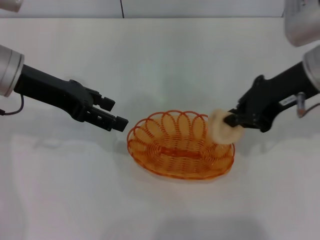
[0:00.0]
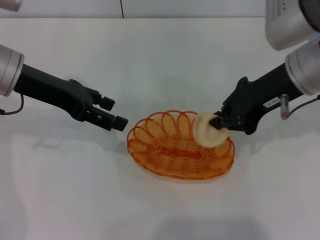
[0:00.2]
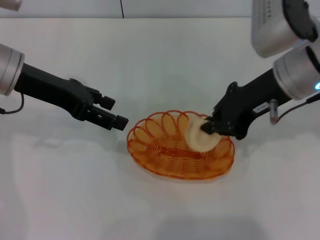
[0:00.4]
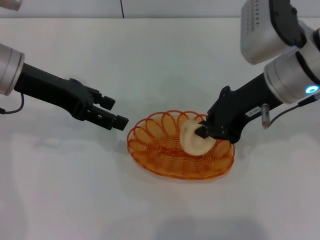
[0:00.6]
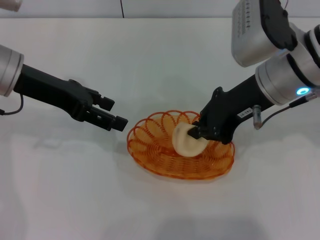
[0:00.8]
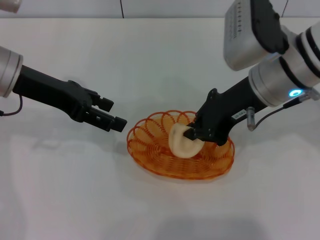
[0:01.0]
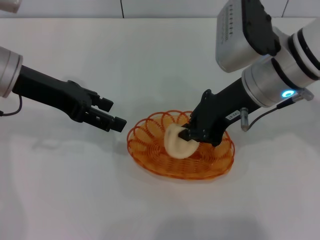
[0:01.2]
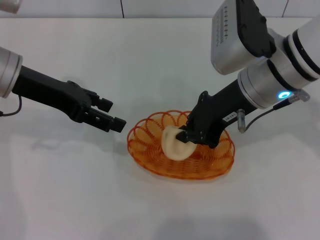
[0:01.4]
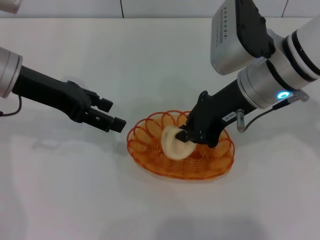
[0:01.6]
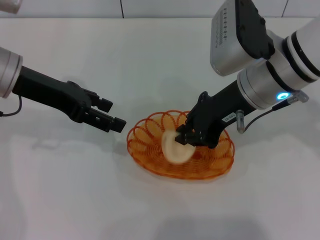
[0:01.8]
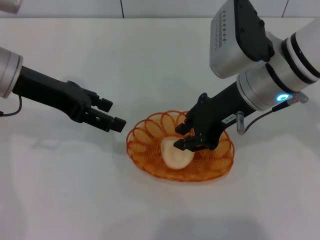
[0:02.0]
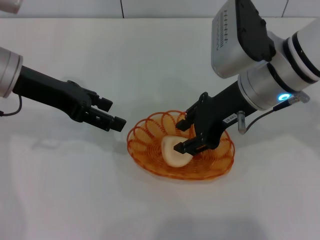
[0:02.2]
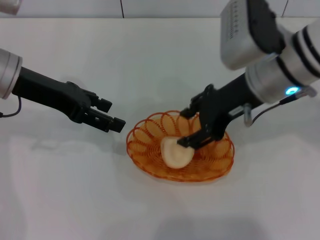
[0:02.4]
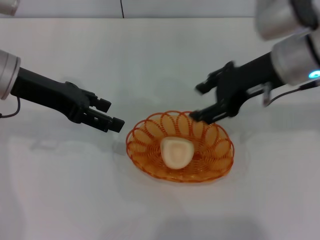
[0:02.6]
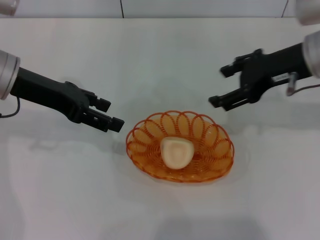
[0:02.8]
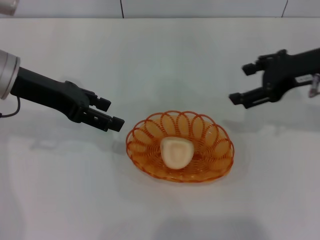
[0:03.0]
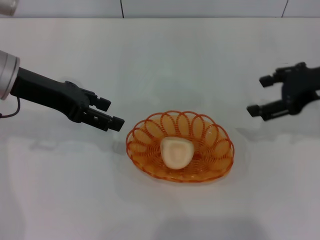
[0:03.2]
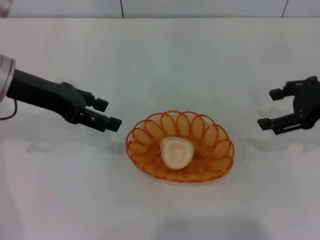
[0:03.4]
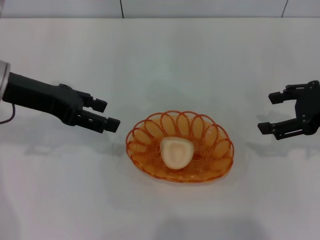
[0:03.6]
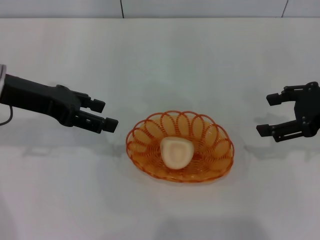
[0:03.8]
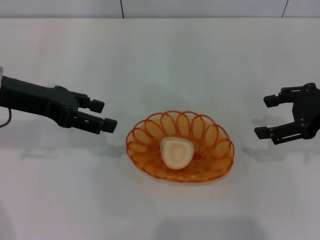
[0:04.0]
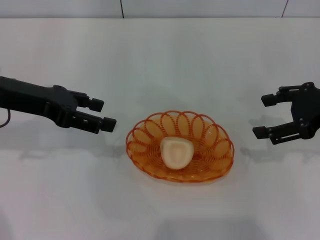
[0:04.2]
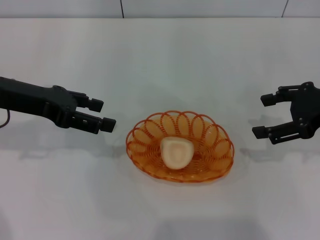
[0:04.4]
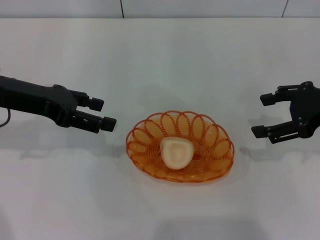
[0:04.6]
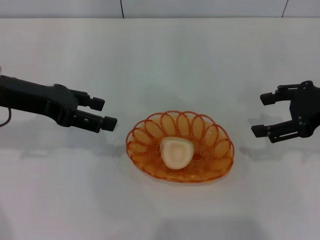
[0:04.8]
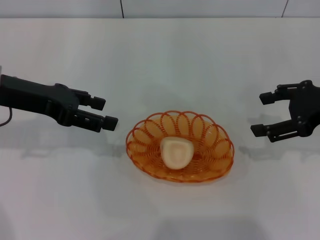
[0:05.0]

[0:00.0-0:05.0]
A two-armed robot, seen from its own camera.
Step, 0:00.0 to 0:02.4: Place the egg yolk pastry into the basket with the right gripper.
0:00.0 to 0:01.6: The right gripper travels to the left by approximately 5 cm.
0:01.6 to 0:03.4: The right gripper moves to the right, roughly 15 cm, and opens its fingers.
0:03.4 to 0:05.0: The grippers stay close to where they were, moving slightly.

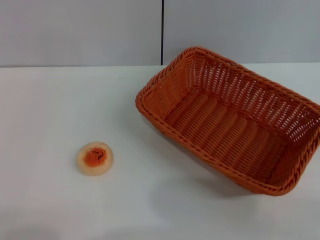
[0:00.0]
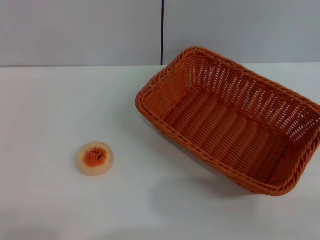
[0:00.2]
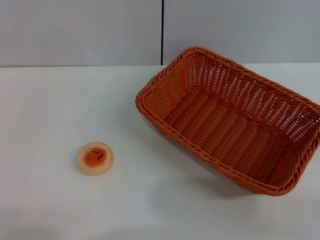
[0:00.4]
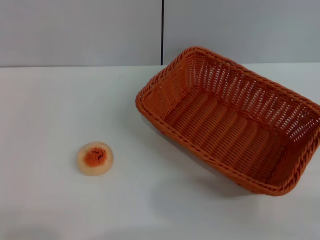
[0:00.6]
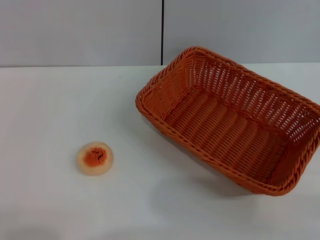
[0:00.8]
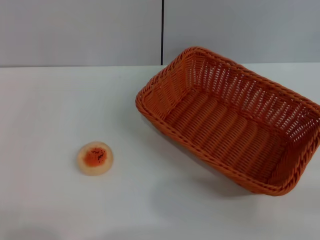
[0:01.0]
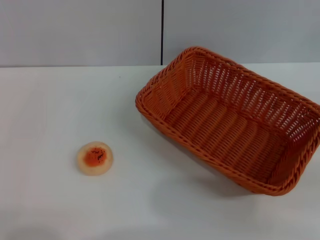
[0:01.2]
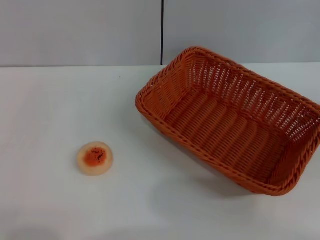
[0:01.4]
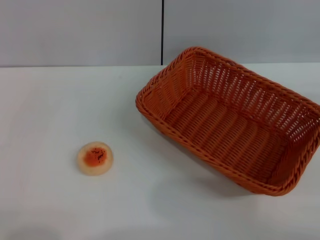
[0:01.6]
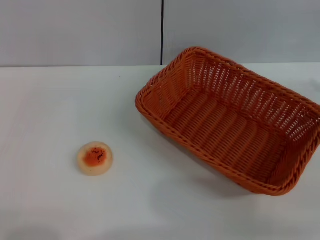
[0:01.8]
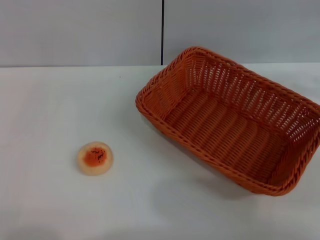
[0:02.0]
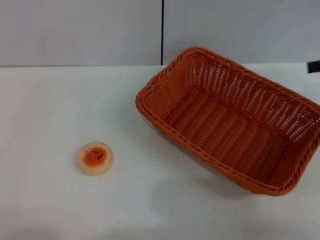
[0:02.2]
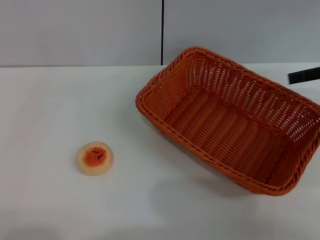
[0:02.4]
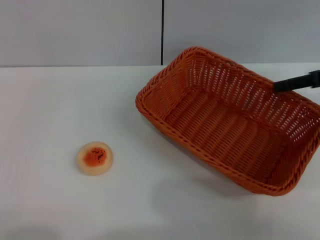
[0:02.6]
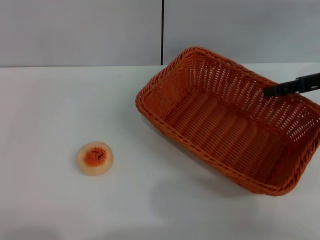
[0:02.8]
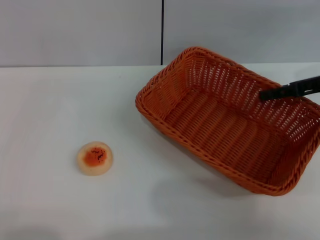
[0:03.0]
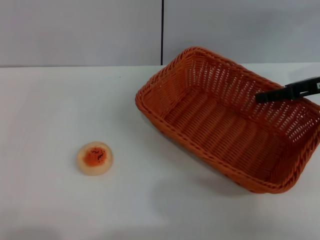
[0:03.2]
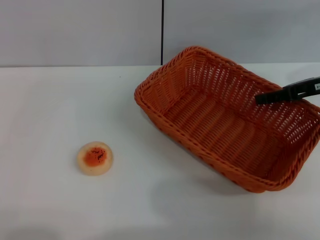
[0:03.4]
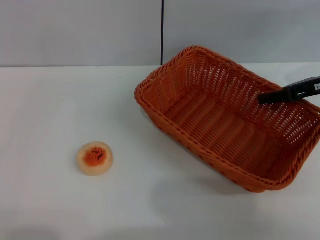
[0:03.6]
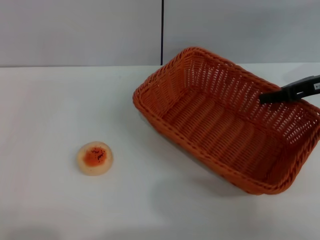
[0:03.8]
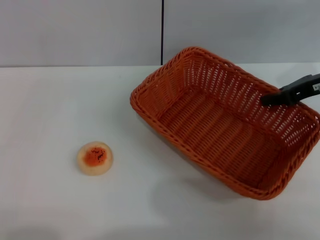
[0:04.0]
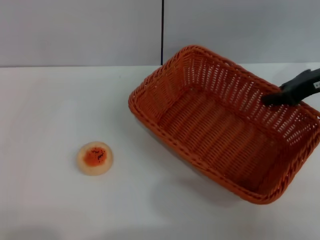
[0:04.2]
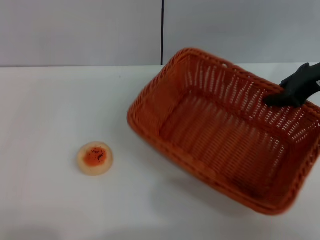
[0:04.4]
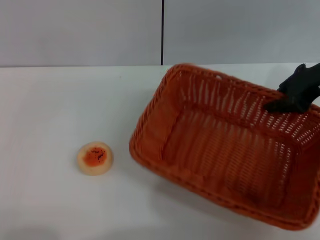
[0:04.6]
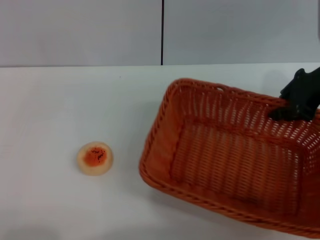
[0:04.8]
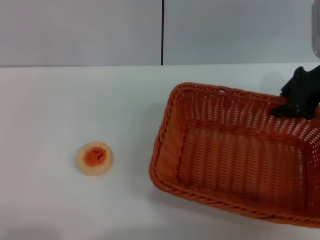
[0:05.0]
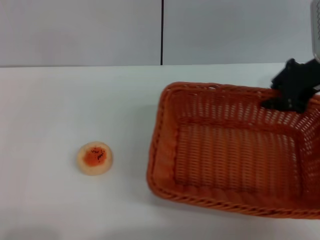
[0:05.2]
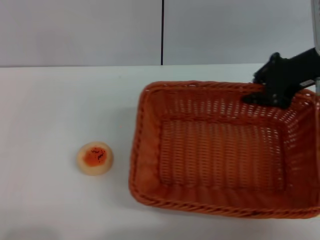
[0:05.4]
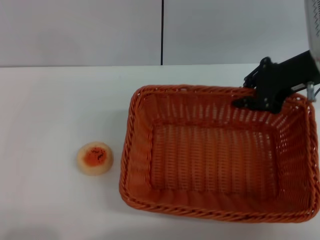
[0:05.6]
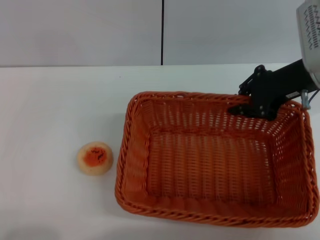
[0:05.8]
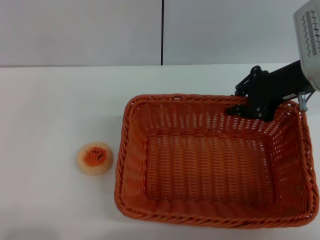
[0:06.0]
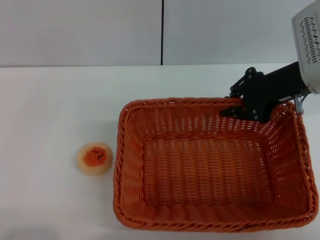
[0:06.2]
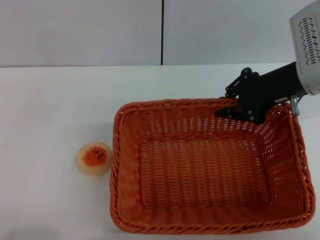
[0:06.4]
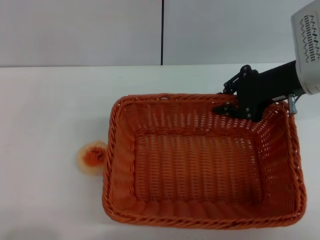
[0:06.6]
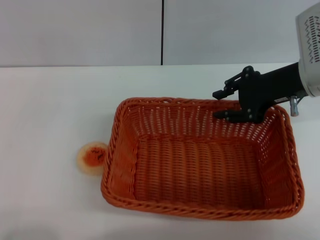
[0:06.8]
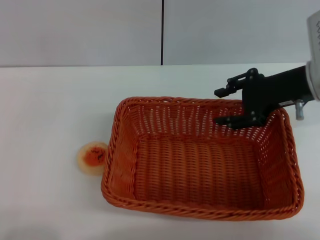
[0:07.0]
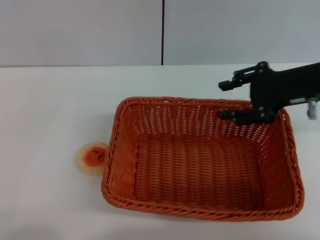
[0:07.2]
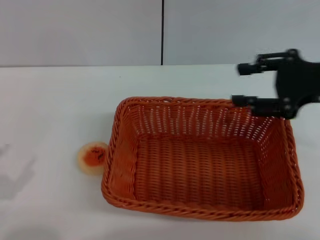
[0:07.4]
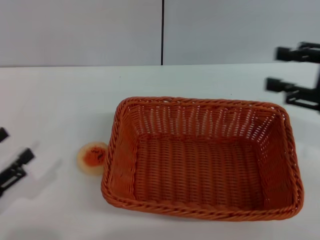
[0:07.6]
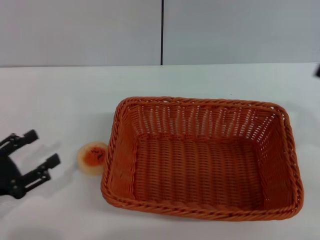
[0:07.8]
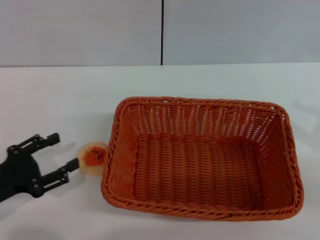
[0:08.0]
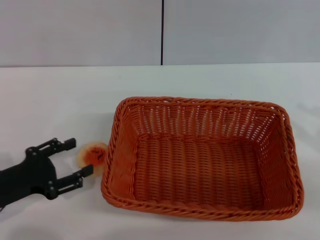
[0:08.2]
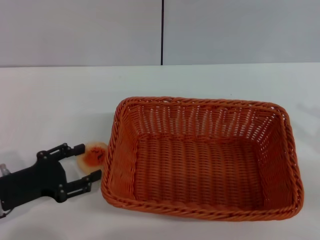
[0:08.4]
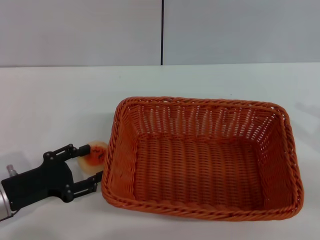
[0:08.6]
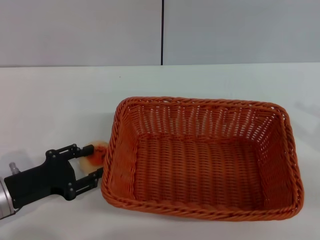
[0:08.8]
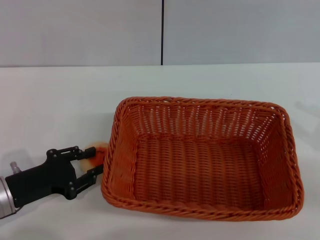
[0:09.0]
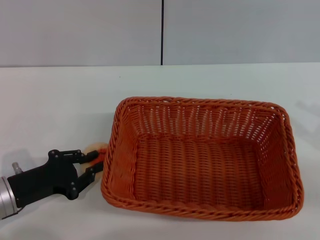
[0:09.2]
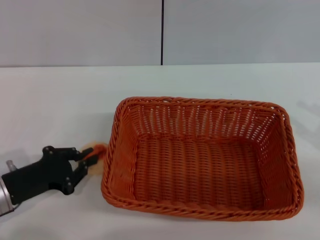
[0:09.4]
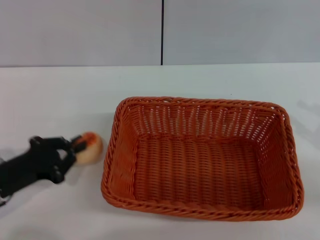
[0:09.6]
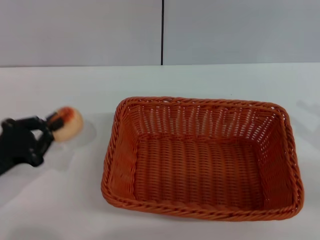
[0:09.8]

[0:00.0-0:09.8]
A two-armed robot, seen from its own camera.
Step, 0:00.0 to 0:07.0: Move the basket to the center of view with the right gripper.
Step, 0:07.2 to 0:09.6: Pick up the egg yolk pastry with the left gripper.
0:01.4 to 0:02.8: The right gripper is displaced to the left and forward by approximately 20 cm.
0:02.8 to 0:04.2: The right gripper closes up.
0:05.6 to 0:07.0: The right gripper opens.
0:07.0 to 0:08.4: The right gripper is displaced backward and to the right by roughly 20 cm. Meanwhile the left gripper shifts roughly 15 cm forward and to the right.
0:08.4 to 0:09.8: The left gripper closes its fingers.

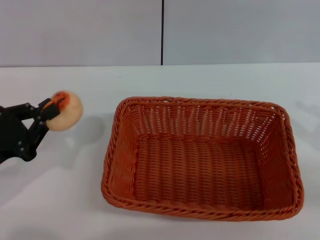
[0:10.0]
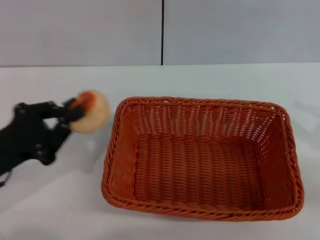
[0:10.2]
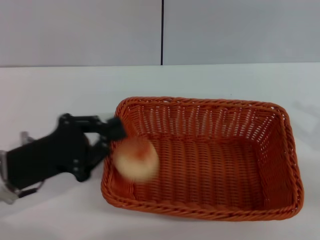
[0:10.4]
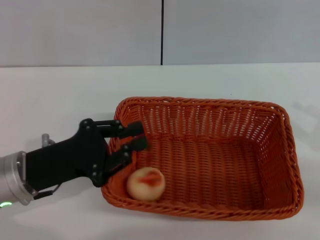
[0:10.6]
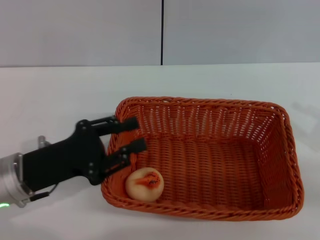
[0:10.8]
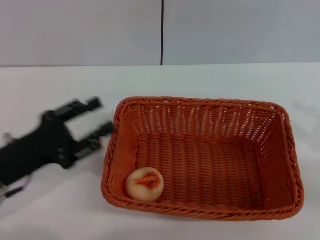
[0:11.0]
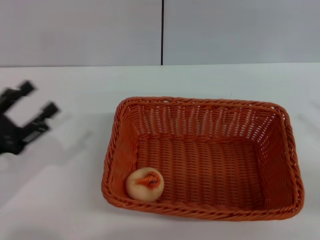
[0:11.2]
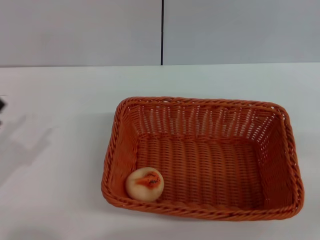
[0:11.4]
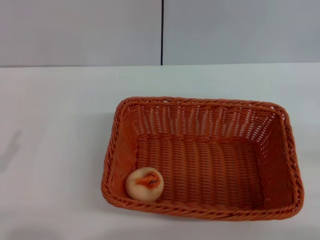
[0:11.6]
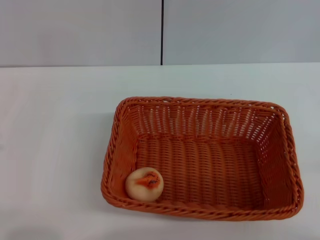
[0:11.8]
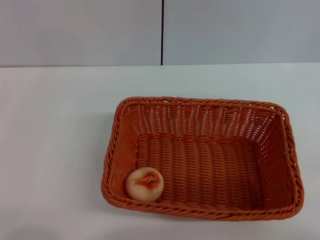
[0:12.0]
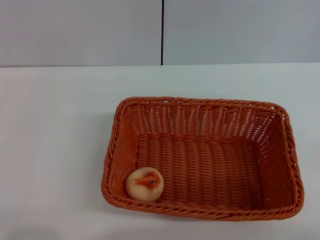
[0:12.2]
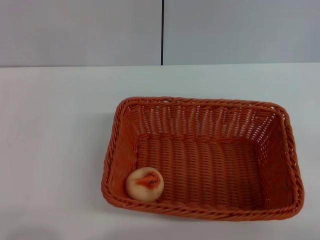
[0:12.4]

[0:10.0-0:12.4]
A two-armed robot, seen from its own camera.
Step, 0:10.0 to 0:10.8: Place the egg yolk pastry into the basket with the left gripper.
0:10.0 to 0:11.2: The left gripper goes to the right and returns, approximately 10 cm each way, and opens.
0:11.2 to 0:12.4: The left gripper travels backward by approximately 10 cm.

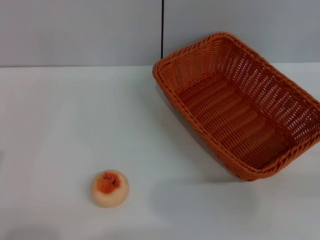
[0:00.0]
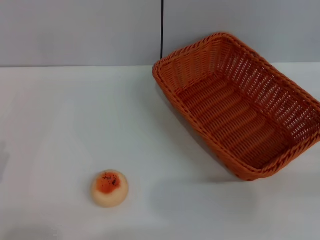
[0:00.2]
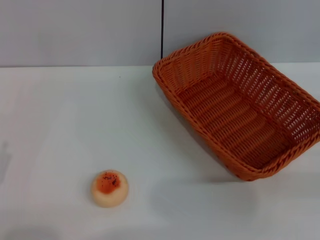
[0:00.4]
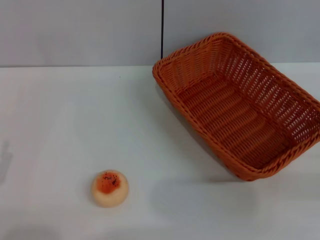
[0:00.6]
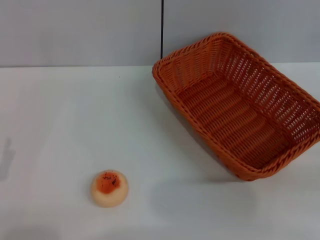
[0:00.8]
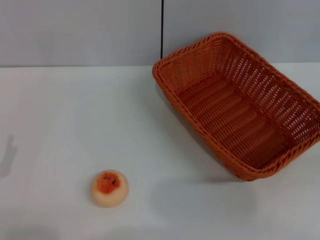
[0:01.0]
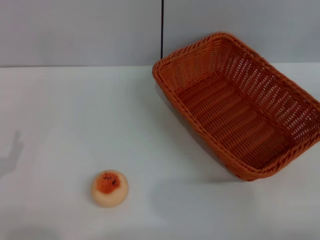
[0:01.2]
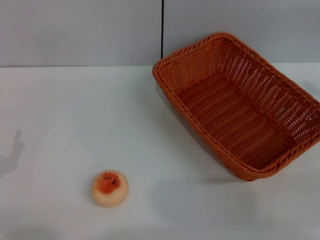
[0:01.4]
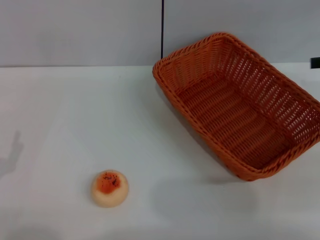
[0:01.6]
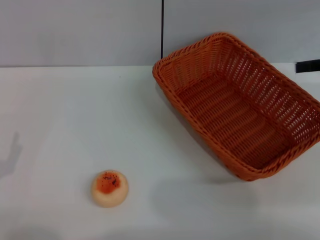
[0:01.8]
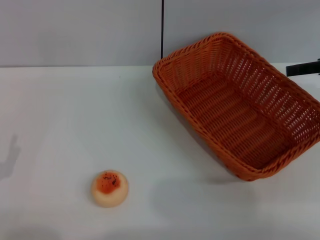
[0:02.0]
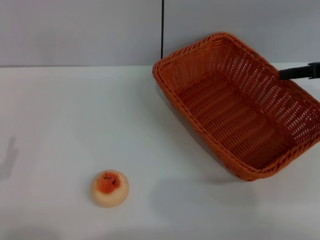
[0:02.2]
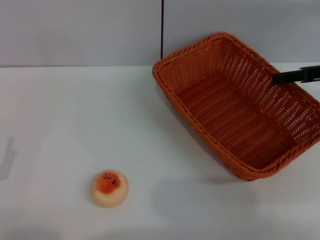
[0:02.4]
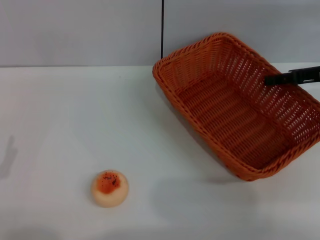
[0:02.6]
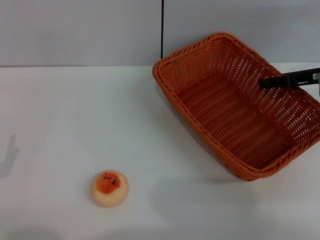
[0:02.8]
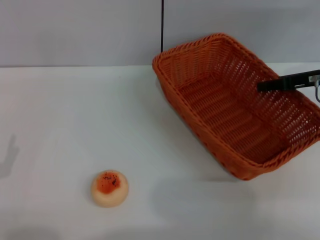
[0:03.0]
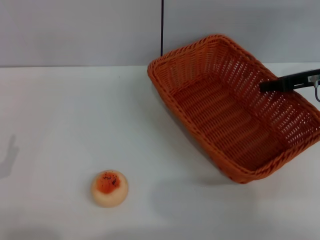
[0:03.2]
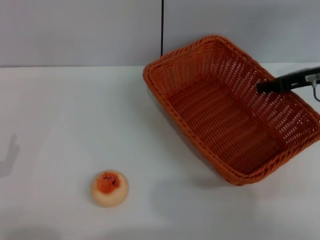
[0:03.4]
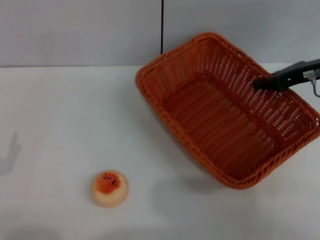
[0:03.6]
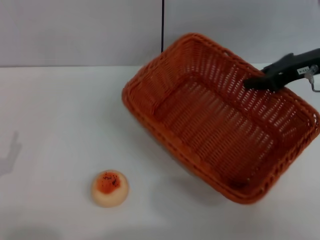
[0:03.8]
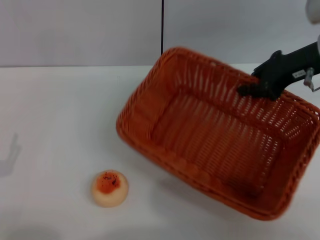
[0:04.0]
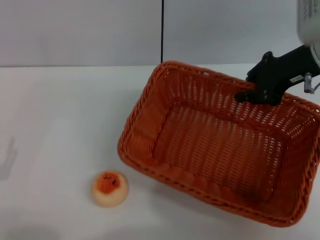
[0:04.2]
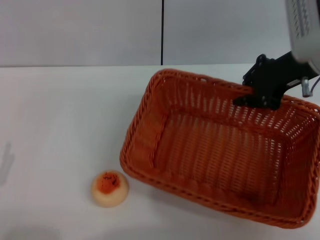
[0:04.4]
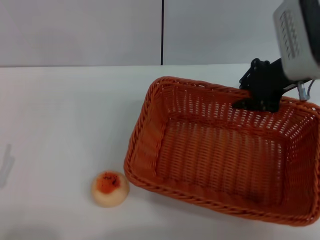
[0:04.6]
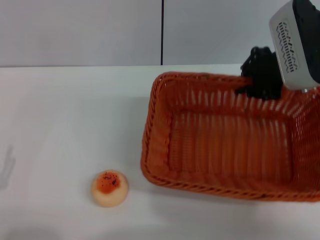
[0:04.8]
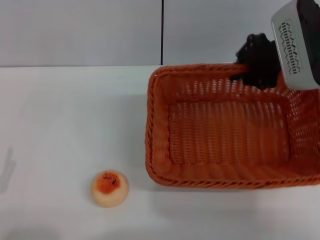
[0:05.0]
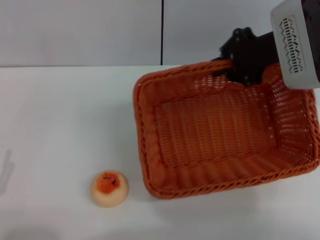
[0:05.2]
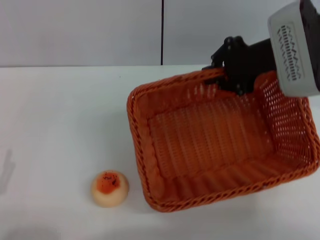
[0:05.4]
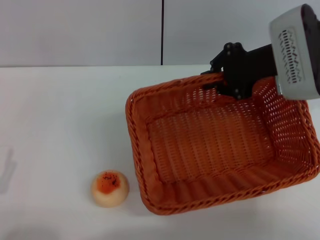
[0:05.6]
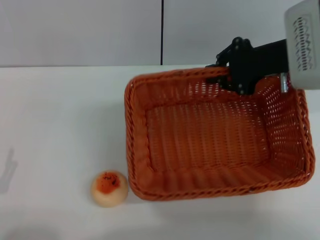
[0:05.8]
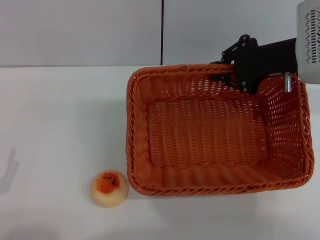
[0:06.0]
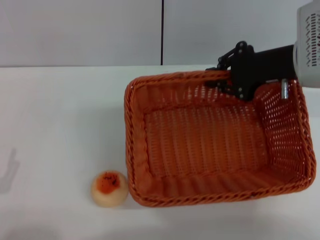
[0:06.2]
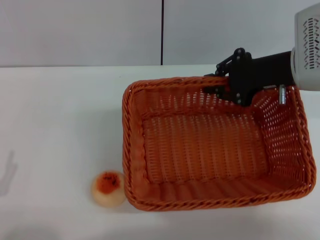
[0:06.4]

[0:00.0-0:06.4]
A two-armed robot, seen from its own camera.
0:01.6 to 0:03.2: The right gripper moves to the left and downward, about 10 cm, and closes.
0:03.2 to 0:04.8: The right gripper moves to the left and upward, about 10 cm.
